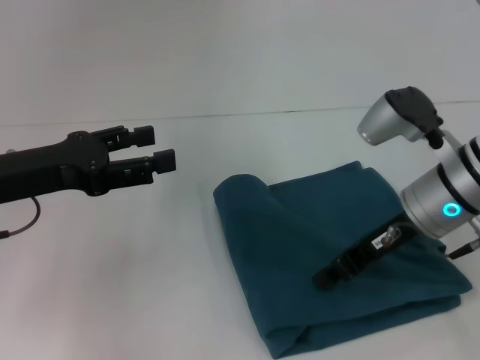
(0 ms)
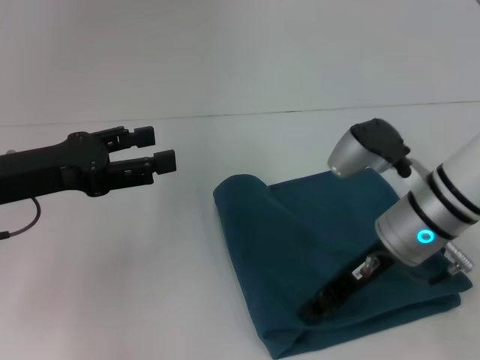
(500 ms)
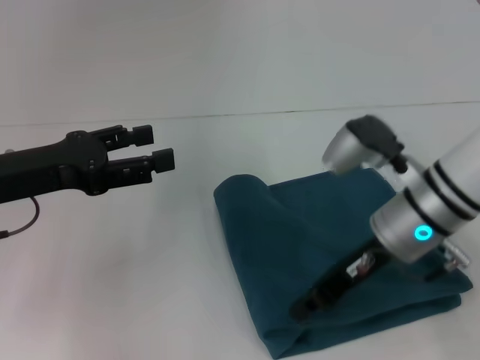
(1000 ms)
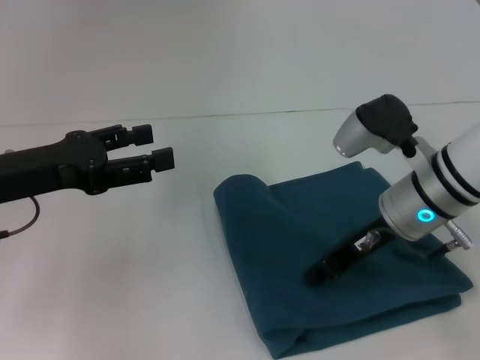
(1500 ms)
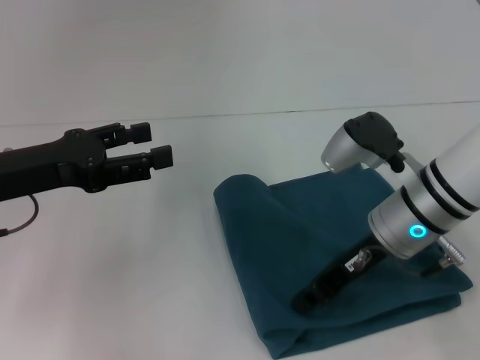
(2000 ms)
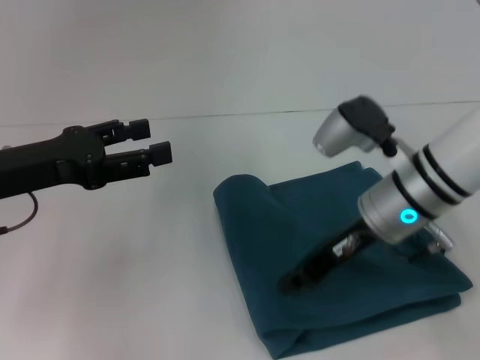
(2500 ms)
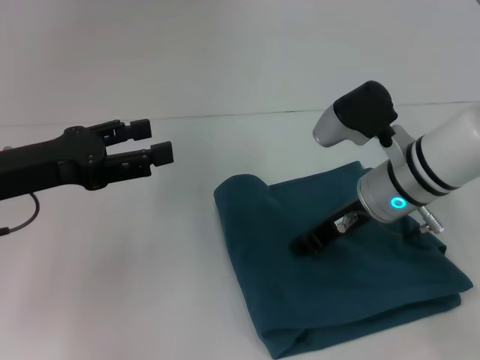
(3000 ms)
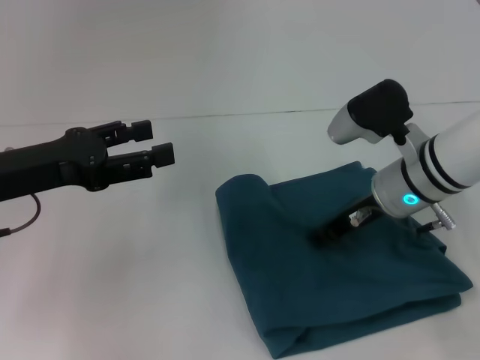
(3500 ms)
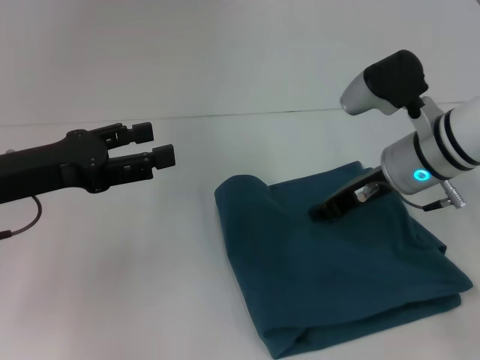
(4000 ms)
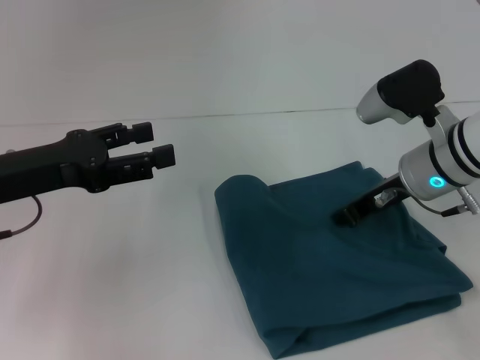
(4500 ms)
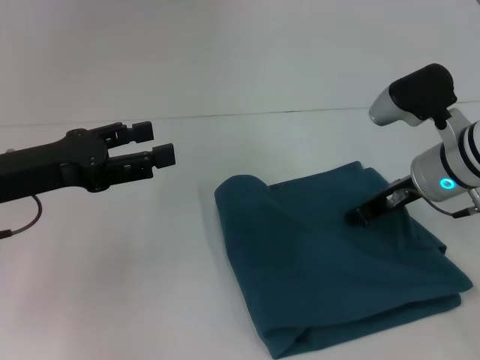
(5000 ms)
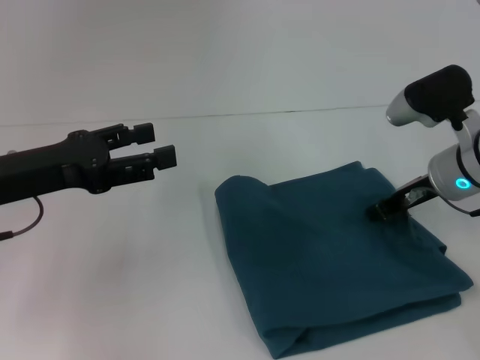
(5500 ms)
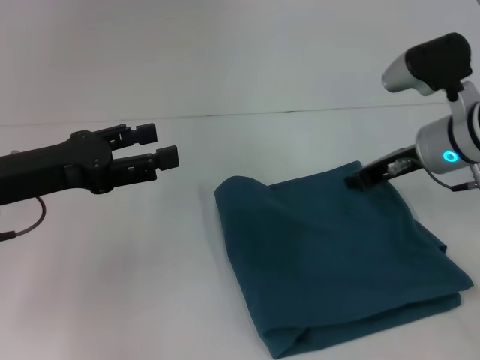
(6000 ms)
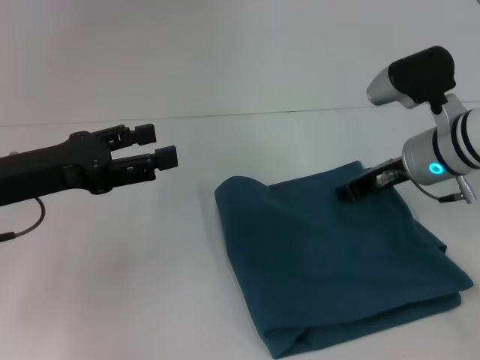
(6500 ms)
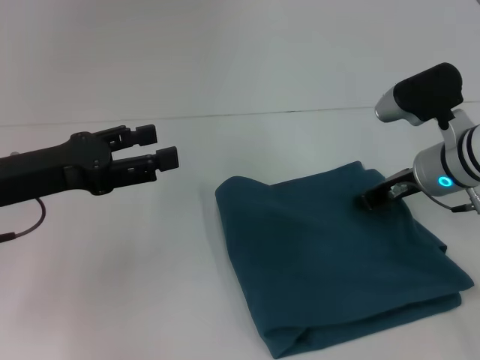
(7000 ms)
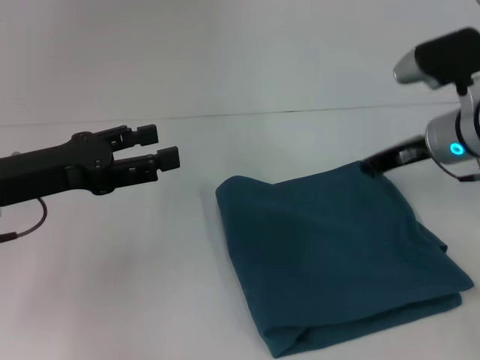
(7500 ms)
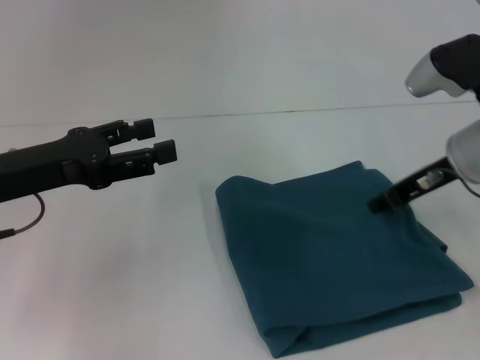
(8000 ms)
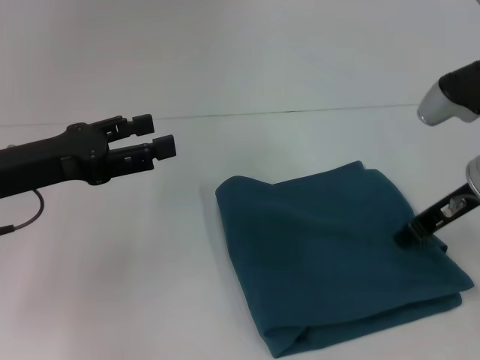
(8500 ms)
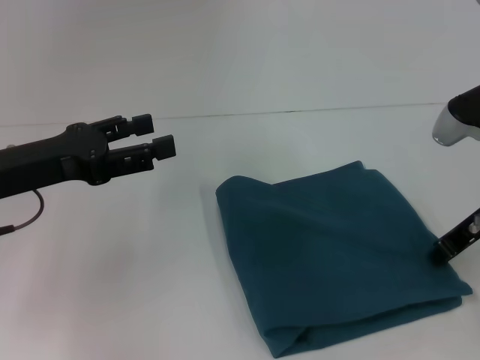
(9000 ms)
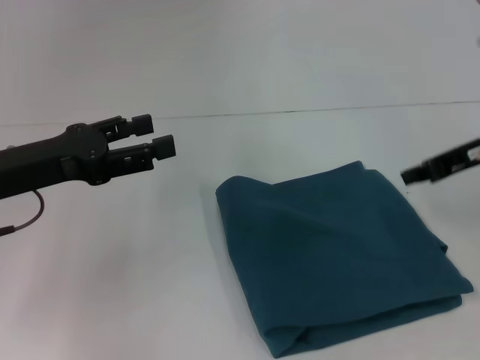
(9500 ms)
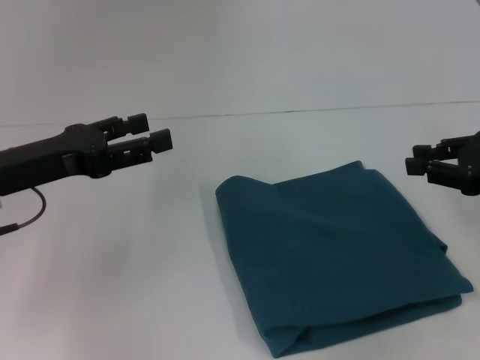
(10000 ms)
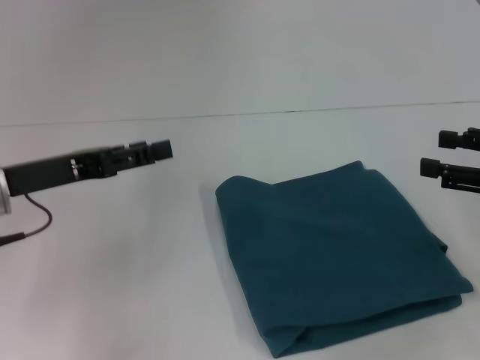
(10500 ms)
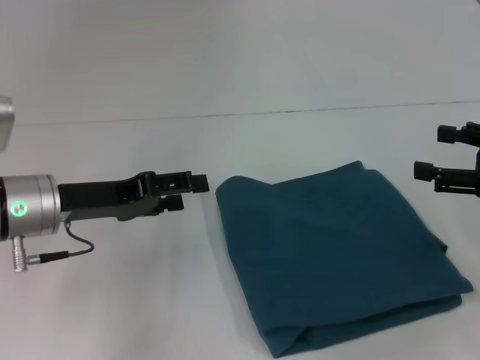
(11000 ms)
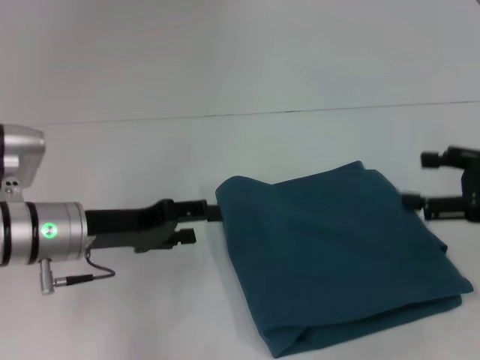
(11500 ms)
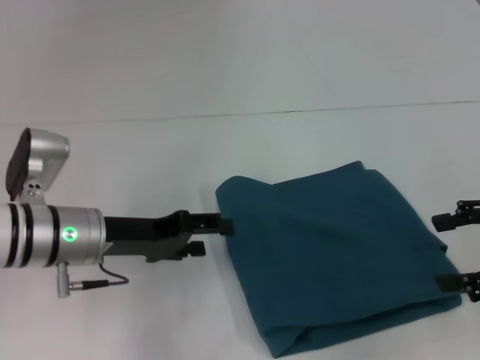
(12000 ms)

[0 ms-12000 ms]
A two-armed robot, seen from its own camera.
0 ms to 2000 ms: The grippers move only a little.
2000 ms to 4000 ms: The right gripper moves some 5 cm.
6000 ms to 8000 ms: There are only small adjustments of the grippers.
8000 ms to 10000 ms: The right gripper heads to the right and backward, covering approximately 10 cm.
10000 ms to 12000 ms: The left gripper travels to the right and downward by roughly 10 cm; the right gripper opens its fingers.

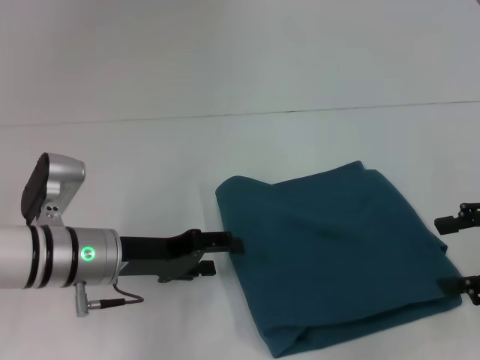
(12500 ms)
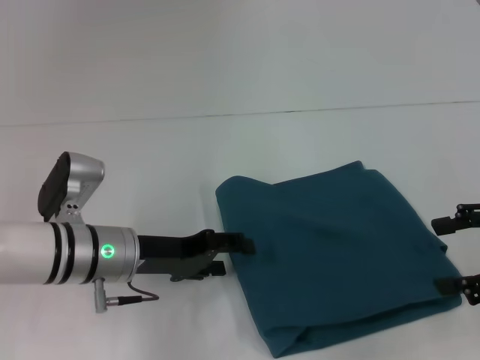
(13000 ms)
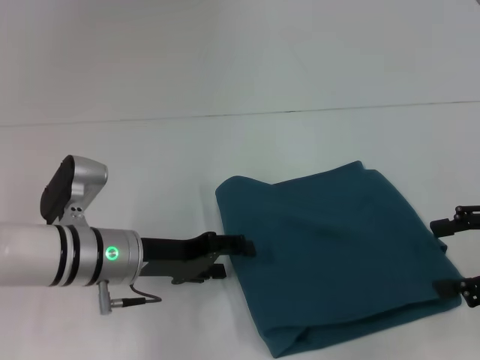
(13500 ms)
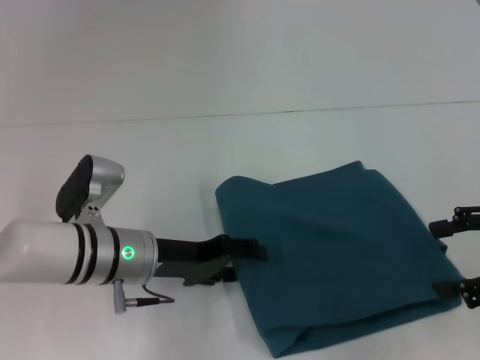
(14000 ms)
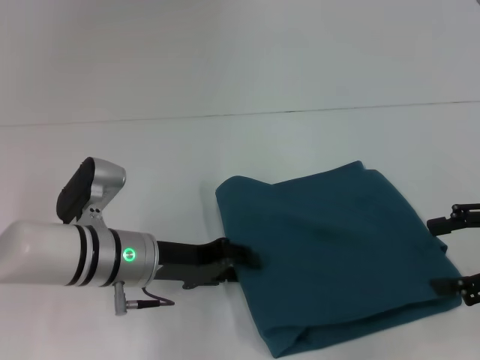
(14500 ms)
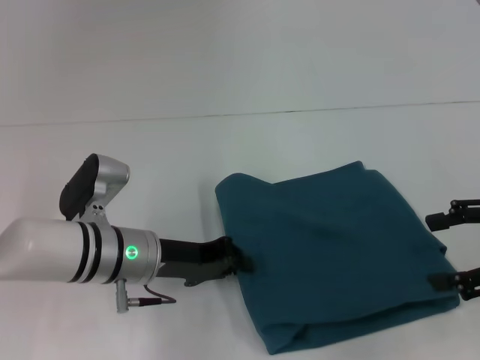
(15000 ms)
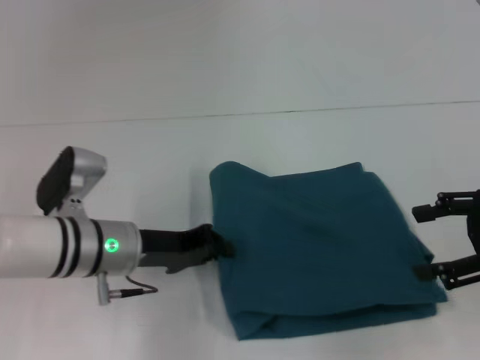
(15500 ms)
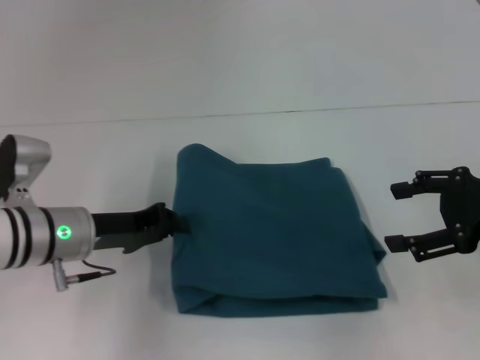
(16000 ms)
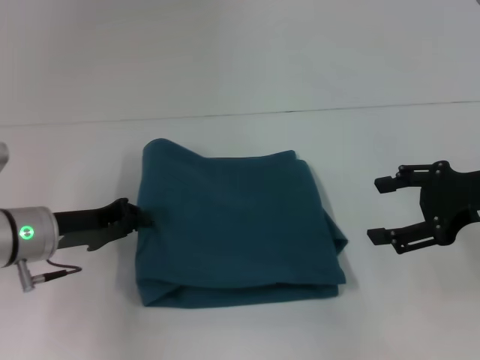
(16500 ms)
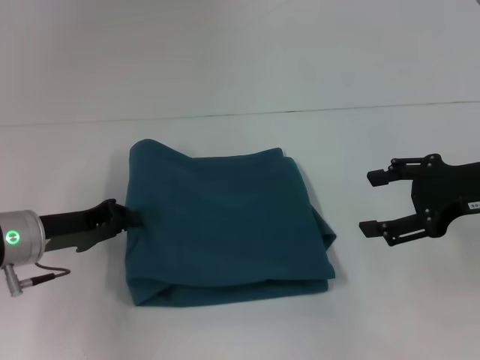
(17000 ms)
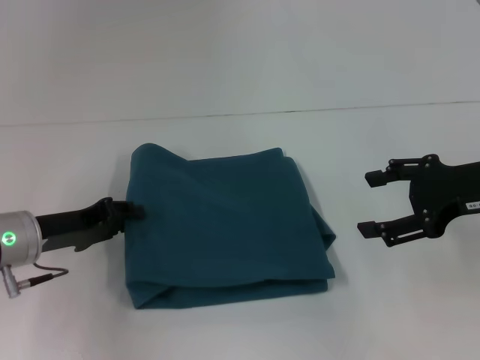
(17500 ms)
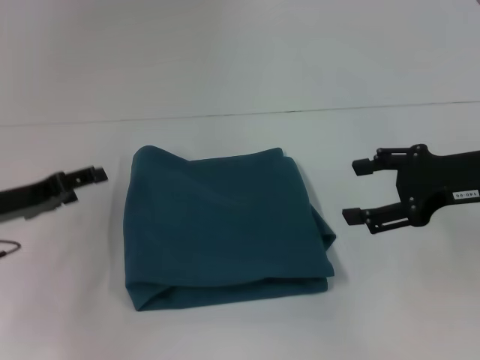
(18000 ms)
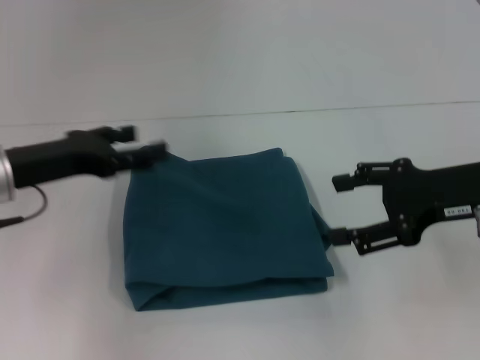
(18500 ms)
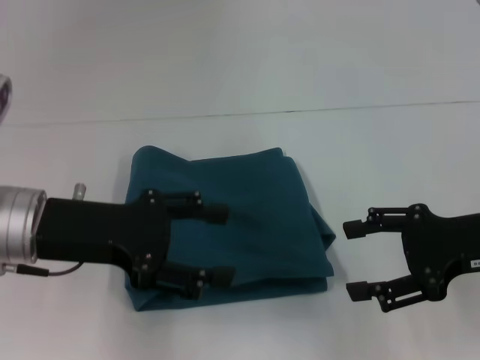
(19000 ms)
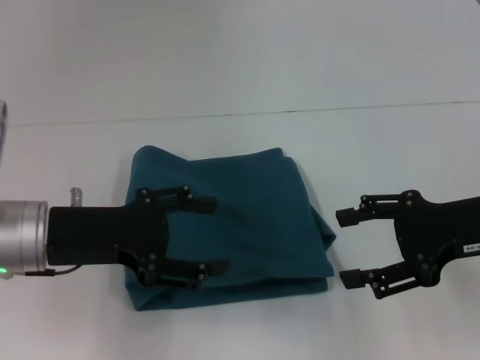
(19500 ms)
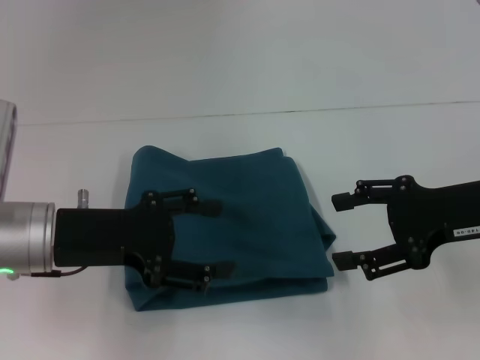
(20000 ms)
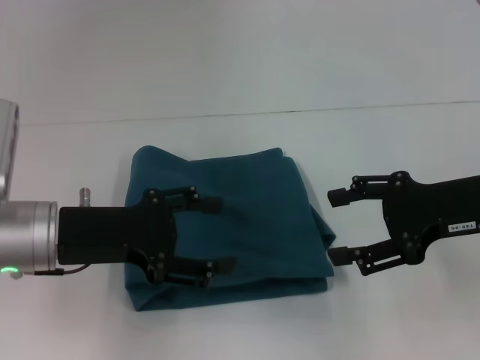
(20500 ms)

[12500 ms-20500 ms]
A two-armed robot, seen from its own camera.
12500 ms to 14500 ms: The grippers stay close to where they were, moving slightly.
14500 ms to 16500 ms: The right gripper changes place by about 5 cm. The left gripper heads to the left, covering some 10 cm, and closes up.
16500 ms to 18500 ms: The left gripper moves upward, approximately 5 cm, and opens.
18500 ms to 20500 ms: The left gripper shifts by roughly 5 cm.

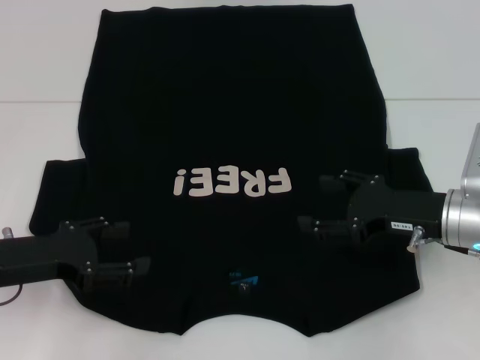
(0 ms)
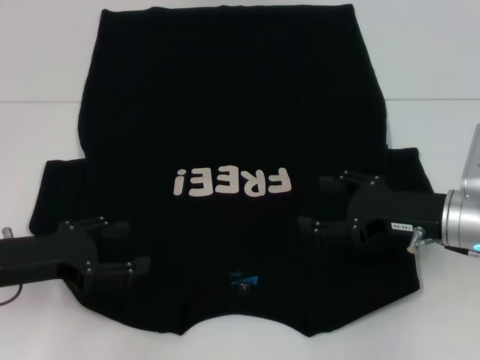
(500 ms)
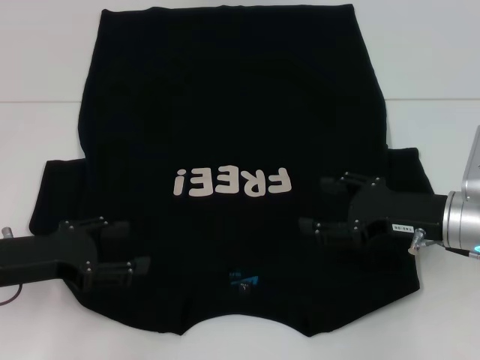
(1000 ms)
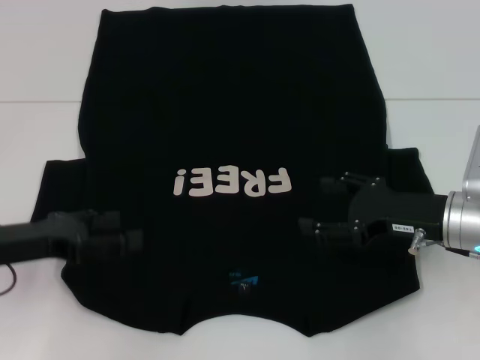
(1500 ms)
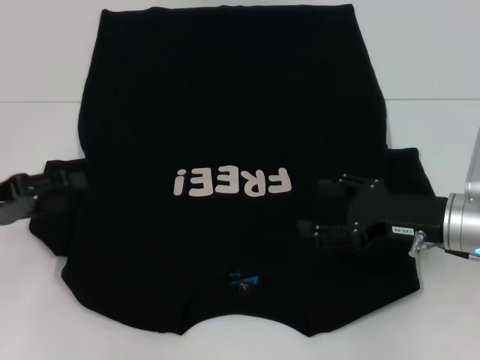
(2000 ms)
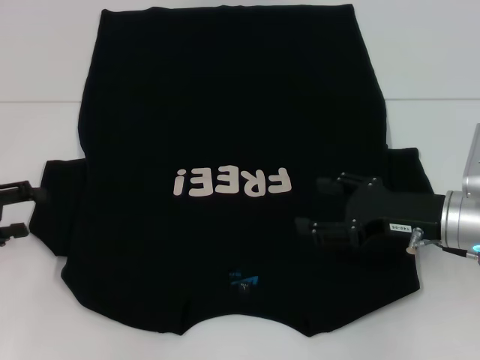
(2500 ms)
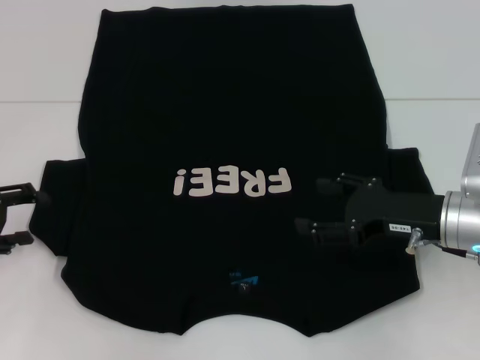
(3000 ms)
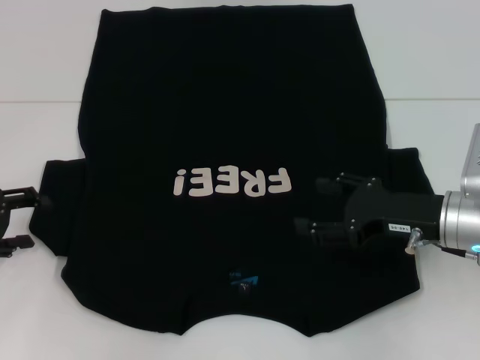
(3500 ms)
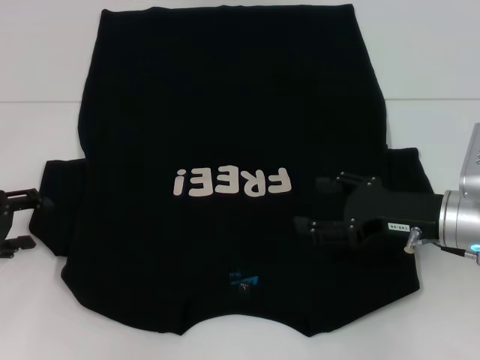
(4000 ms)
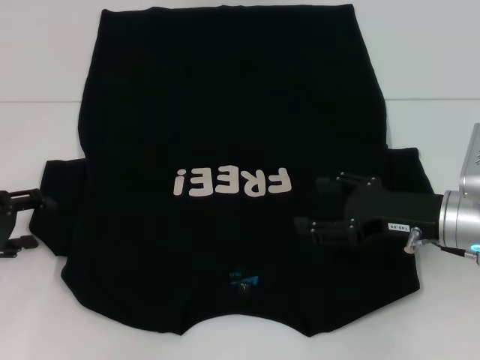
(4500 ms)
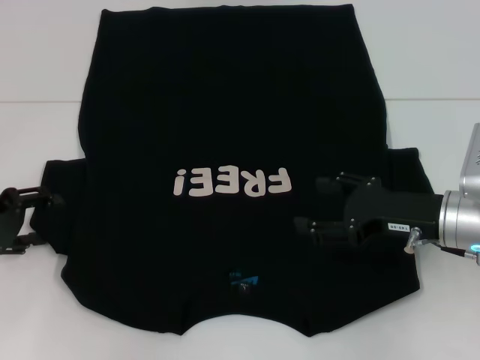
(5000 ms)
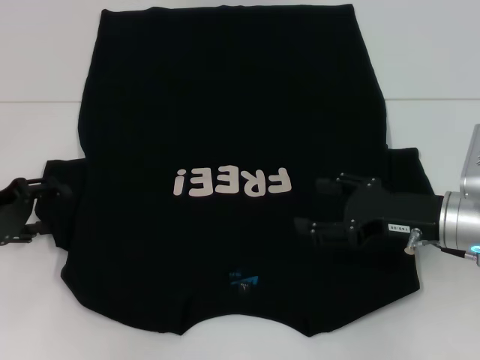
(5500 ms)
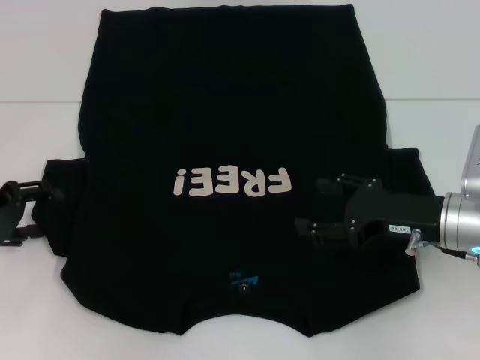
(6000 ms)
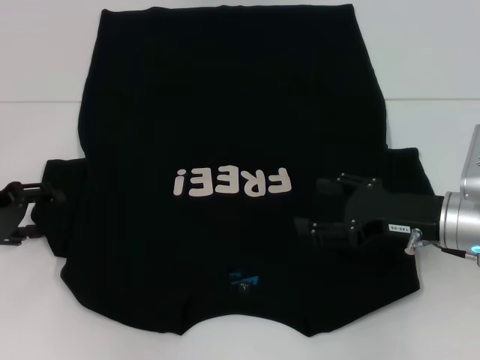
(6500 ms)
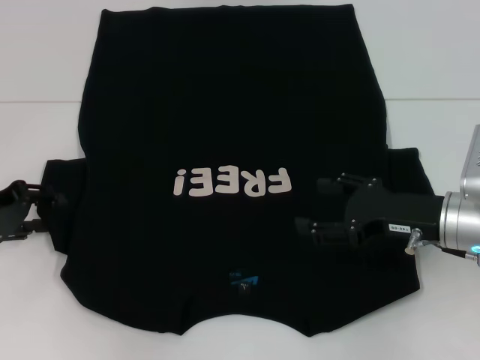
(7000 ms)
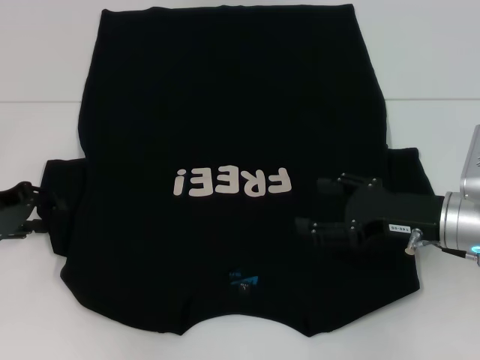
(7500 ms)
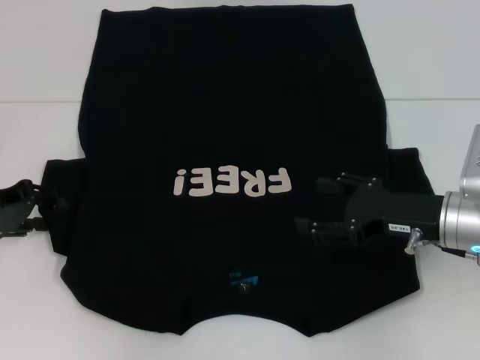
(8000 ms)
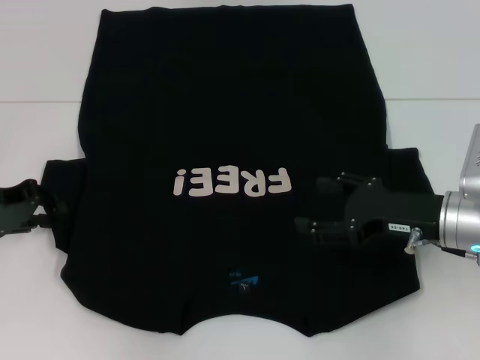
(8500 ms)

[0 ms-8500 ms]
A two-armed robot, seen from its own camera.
0 ms to 2000 ms: The left gripper moves to the left, about 5 cm.
4000 ms to 6500 ms: The grippers stay close to where they were, moving slightly.
6500 ms to 8500 ms: The left gripper closes.
